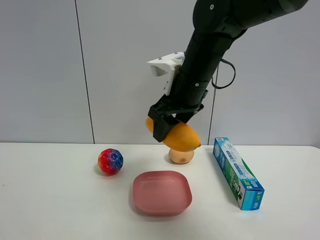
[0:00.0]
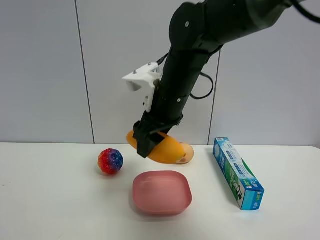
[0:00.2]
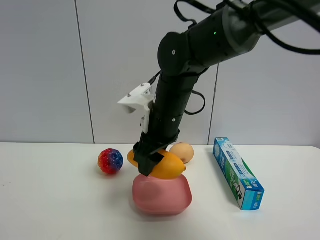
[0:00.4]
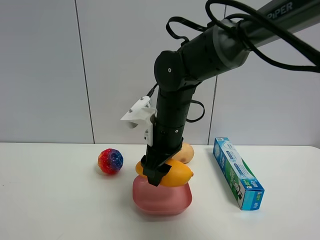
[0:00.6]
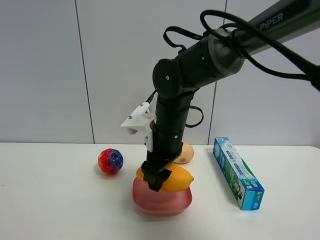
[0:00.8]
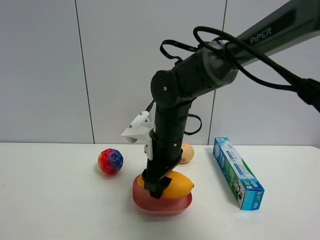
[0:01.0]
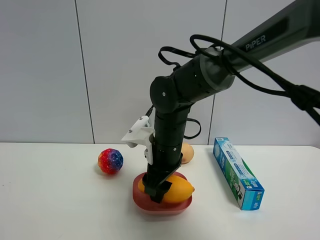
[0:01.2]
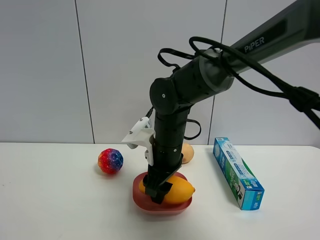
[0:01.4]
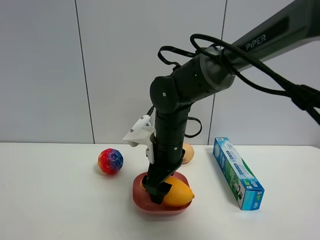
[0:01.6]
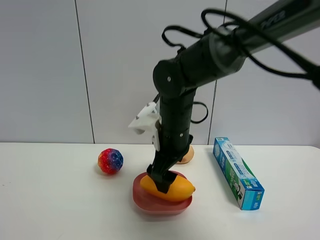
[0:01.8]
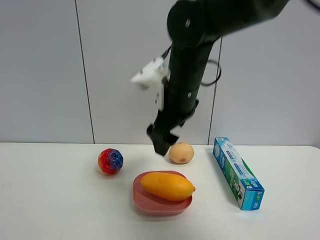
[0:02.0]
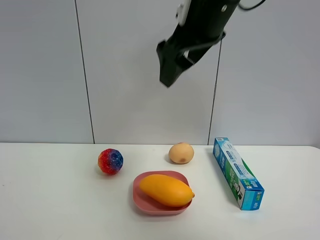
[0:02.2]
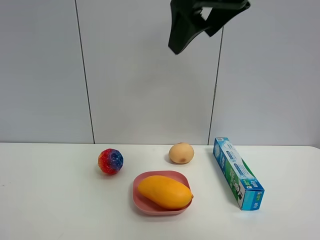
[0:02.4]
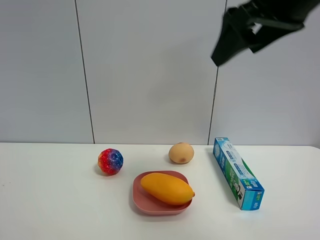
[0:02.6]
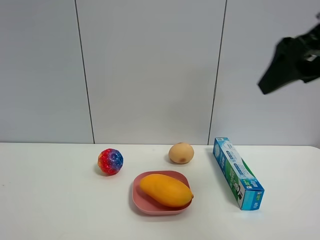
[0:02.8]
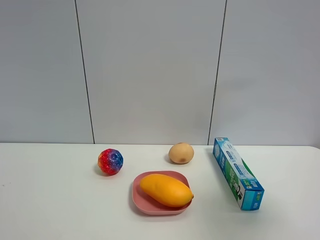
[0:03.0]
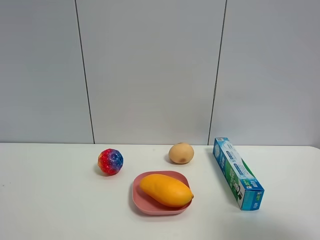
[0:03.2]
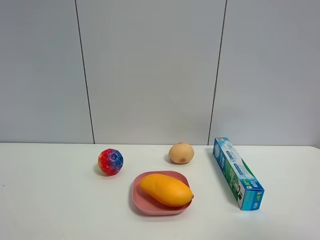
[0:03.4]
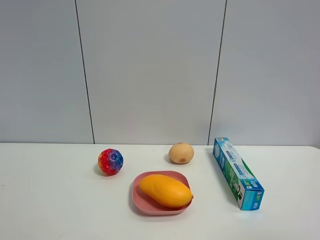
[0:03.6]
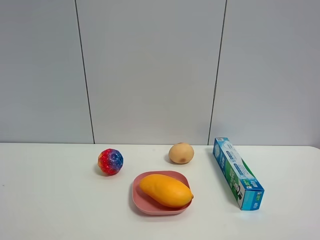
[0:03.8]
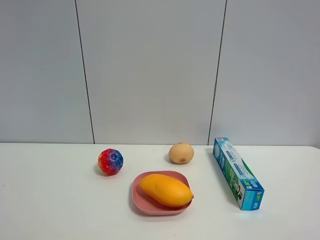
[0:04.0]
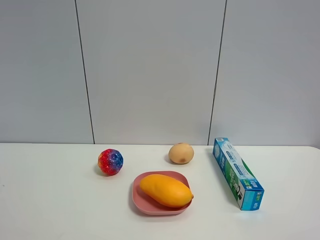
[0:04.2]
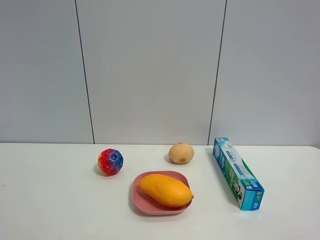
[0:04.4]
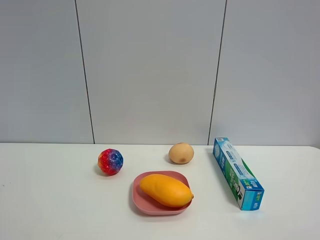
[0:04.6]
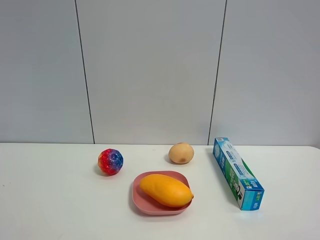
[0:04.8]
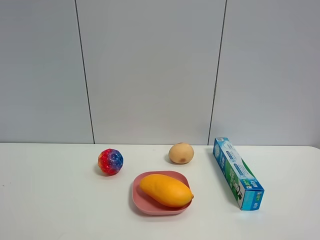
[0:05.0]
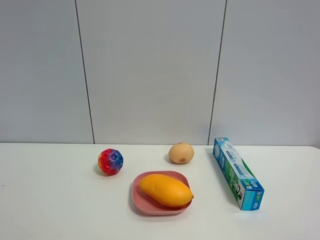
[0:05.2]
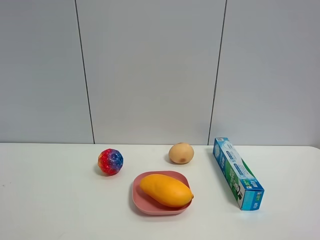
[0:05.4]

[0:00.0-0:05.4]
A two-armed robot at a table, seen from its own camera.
Task of the whole recording: the gripper move the object.
Step, 0.0 to 1.8 s: Place the mango into the pink plate with the right gripper.
0.0 to 1.4 s: The right gripper heads downward and to the left, covering some 15 cm.
1.4 to 2.8 s: The right gripper shifts approximately 30 cm upward, to the right and backward, and opens.
2.8 to 4.0 s: The right gripper heads backward and to the right, covering approximately 25 cm.

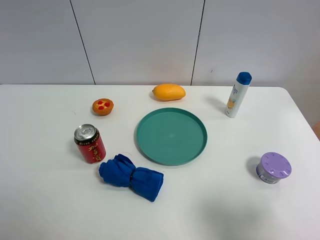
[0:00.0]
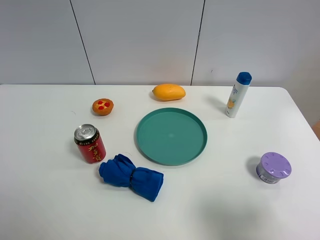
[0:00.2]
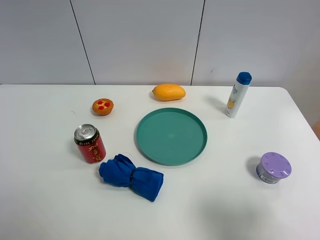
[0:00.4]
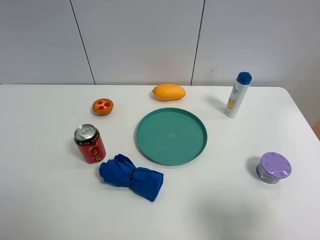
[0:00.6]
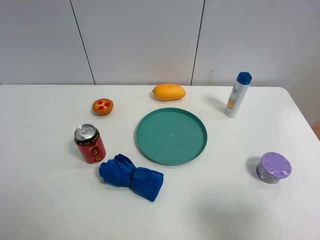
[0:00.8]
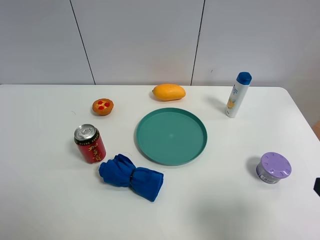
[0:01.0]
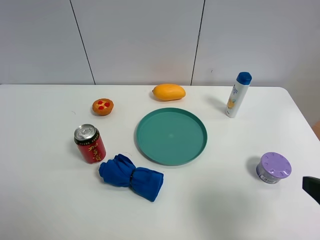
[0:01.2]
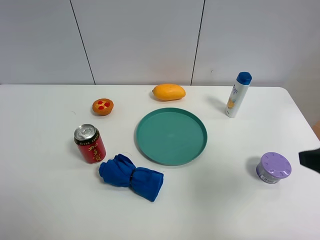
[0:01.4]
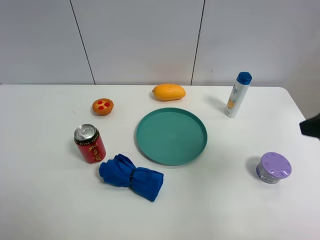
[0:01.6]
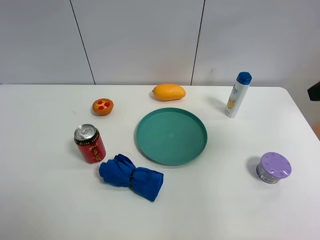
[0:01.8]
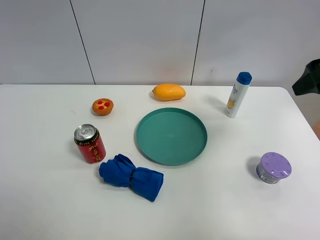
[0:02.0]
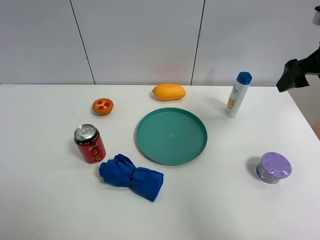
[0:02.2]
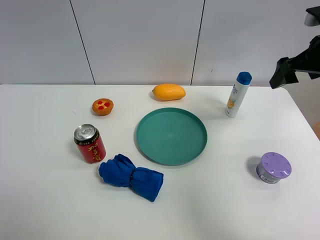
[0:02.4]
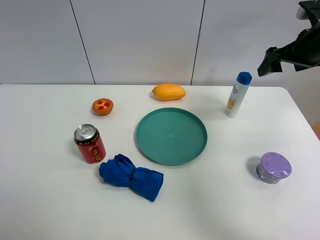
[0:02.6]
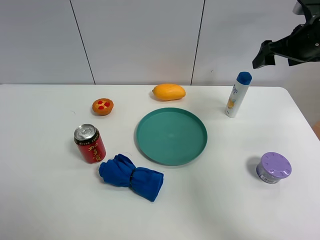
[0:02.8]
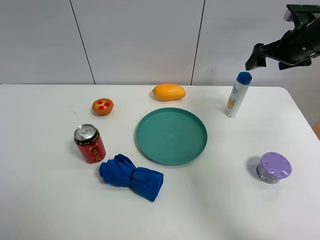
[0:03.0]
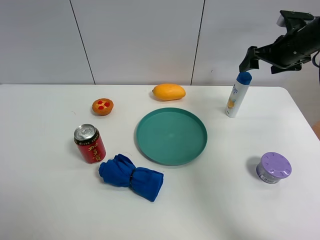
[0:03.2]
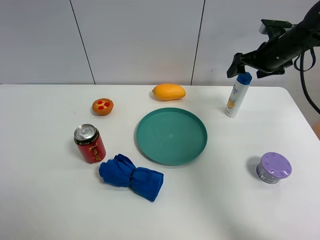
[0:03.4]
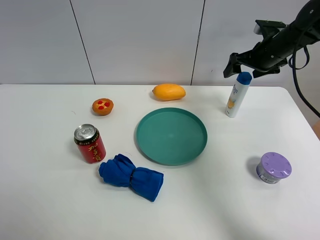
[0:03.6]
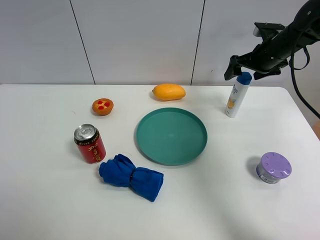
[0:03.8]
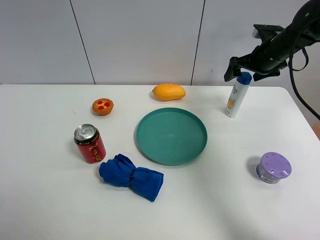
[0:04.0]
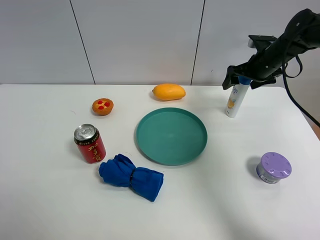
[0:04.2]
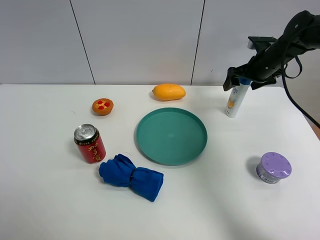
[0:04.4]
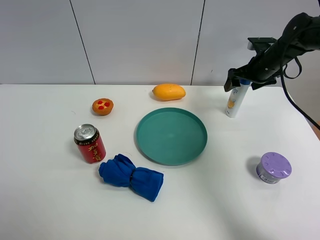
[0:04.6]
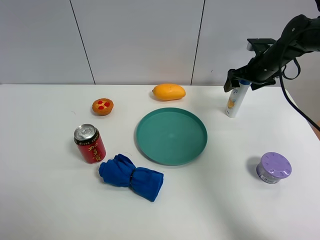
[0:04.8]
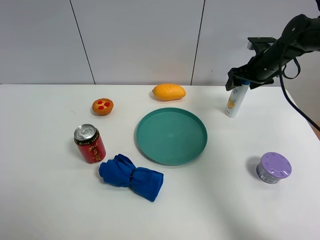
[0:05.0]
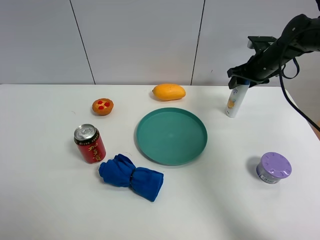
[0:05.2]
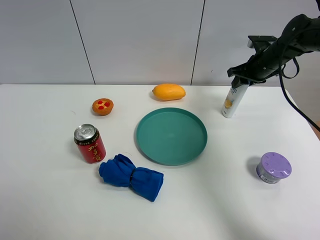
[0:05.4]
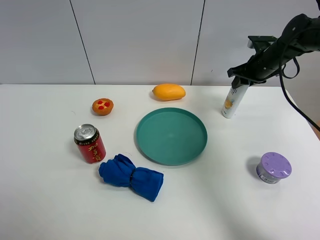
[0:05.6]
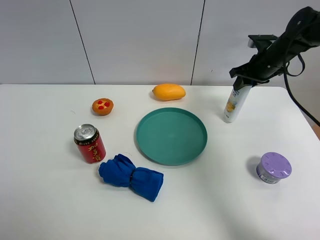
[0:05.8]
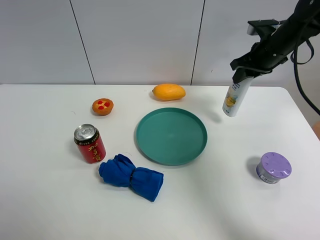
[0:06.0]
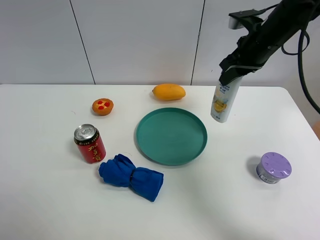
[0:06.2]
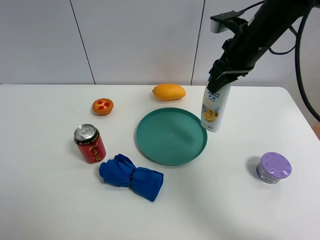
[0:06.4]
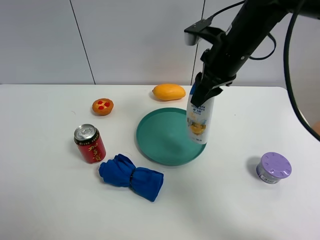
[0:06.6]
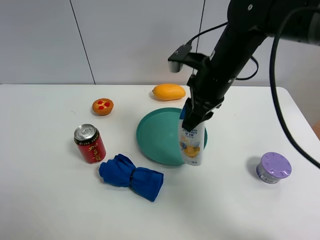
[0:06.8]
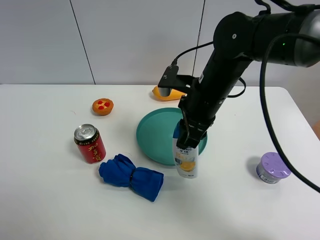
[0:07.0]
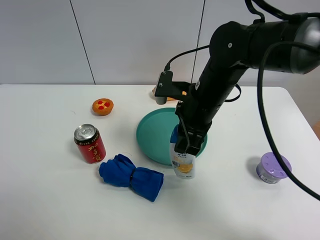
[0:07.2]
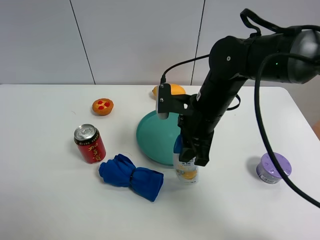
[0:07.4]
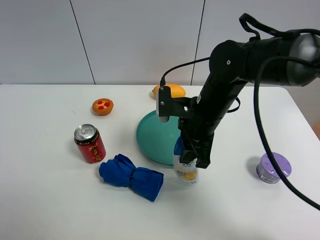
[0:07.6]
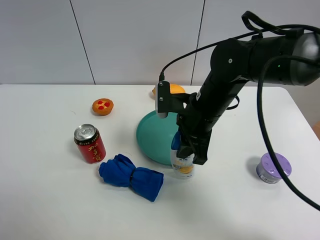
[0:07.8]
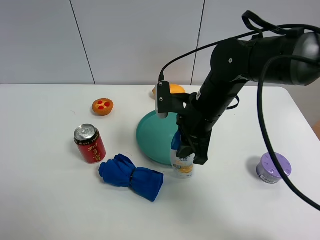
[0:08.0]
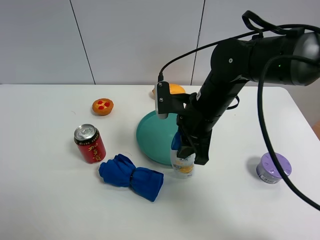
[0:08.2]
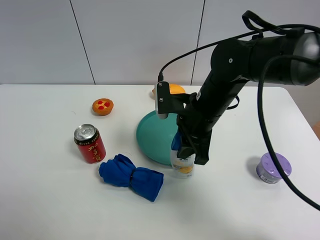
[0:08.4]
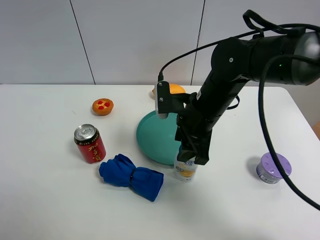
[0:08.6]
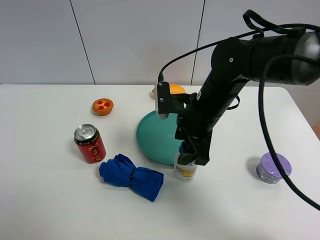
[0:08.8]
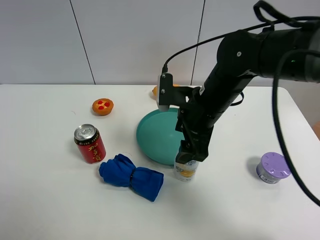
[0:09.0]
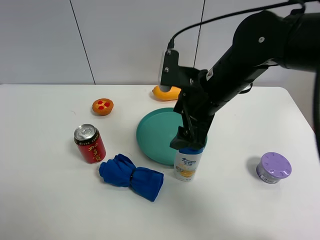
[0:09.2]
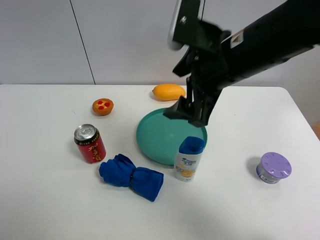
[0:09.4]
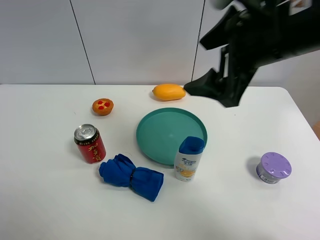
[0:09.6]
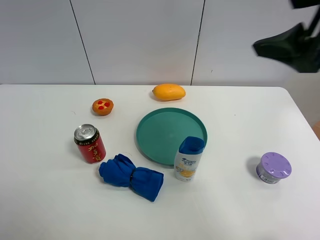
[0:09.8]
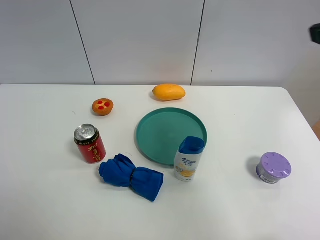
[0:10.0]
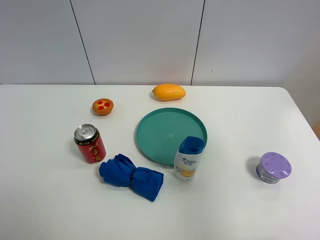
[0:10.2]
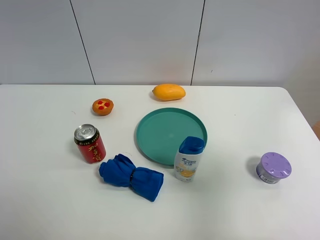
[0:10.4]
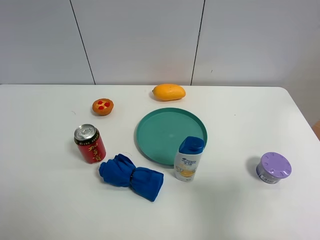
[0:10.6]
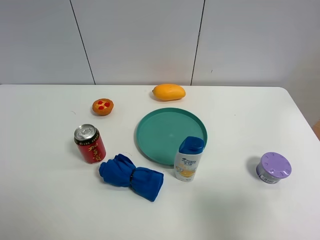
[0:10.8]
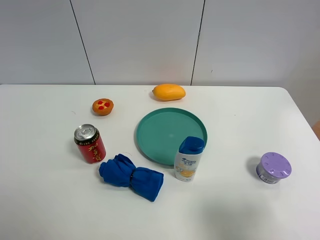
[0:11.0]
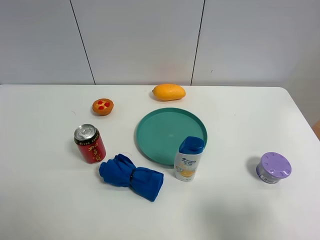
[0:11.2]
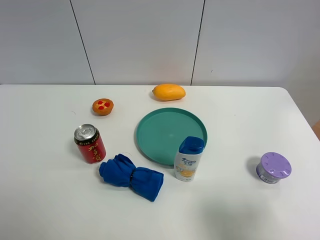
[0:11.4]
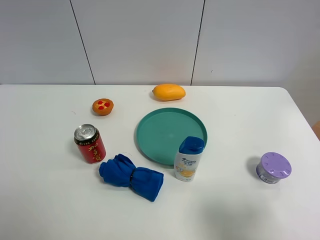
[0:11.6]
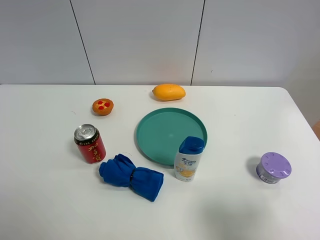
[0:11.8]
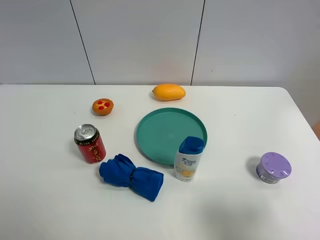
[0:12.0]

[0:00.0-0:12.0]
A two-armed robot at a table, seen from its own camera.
Task of the whole recording: the gripper move the object.
Step, 0.0 to 5.2 s: Grasp the shampoo with the right gripper.
Step, 5.4 to 8.6 s: Place the shampoo on the table with the right gripper.
0.0 to 1.6 s: The right gripper moves forward and upward, some 15 cm.
1.6 to 3.0 s: The right gripper heads forward, covering approximately 25 cm.
3.0 to 4.4 s: The right gripper heads downward, covering about 5 cm.
4.4 to 6.0 s: The right gripper shifts roughly 5 cm upward, and closes.
6.0 to 7.6 s: The right gripper travels to the left and backward by roughly 20 cm.
7.6 to 9.0 s: The right gripper opens its fingers.
9.0 to 10.4 s: The right gripper moves to the right, backward and upward, about 30 cm.
10.4 to 12.0 s: The right gripper is displaced downward and backward by some 10 cm.

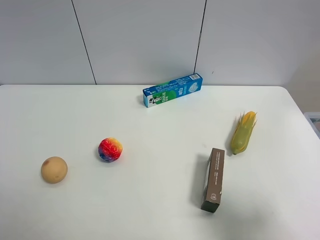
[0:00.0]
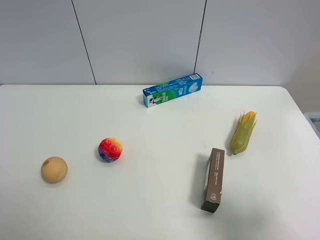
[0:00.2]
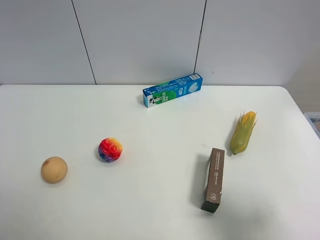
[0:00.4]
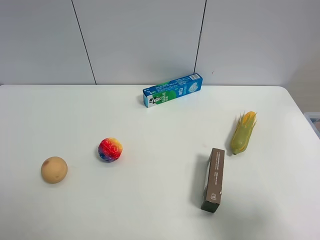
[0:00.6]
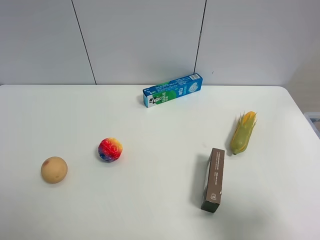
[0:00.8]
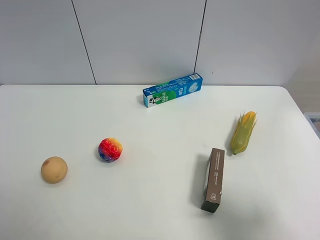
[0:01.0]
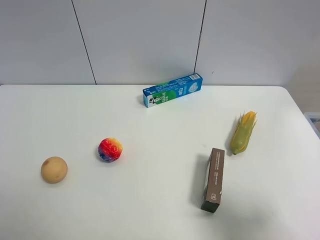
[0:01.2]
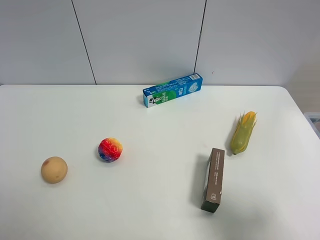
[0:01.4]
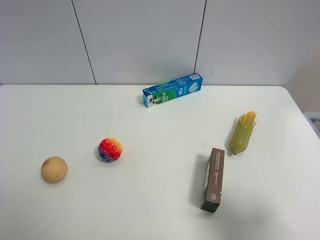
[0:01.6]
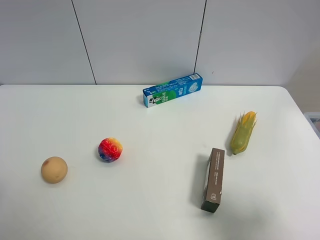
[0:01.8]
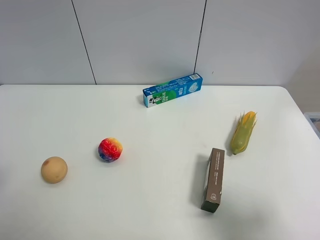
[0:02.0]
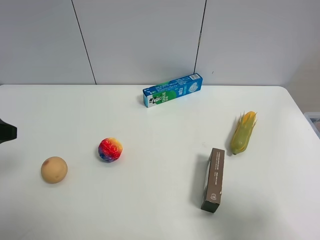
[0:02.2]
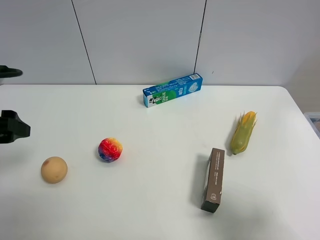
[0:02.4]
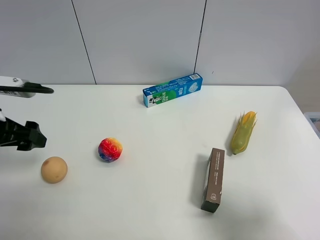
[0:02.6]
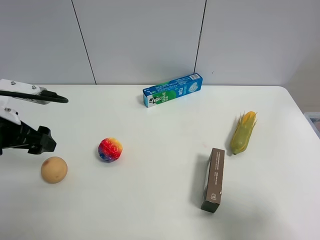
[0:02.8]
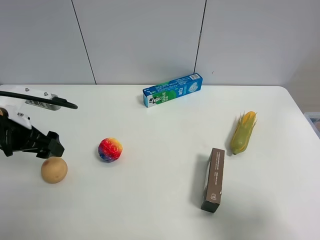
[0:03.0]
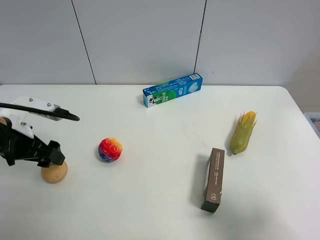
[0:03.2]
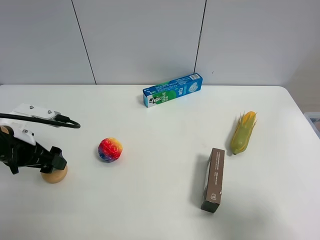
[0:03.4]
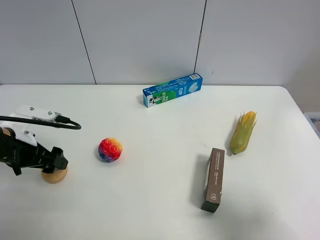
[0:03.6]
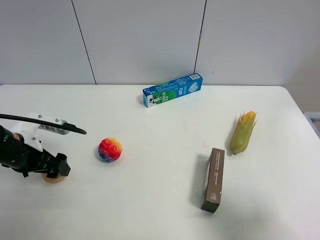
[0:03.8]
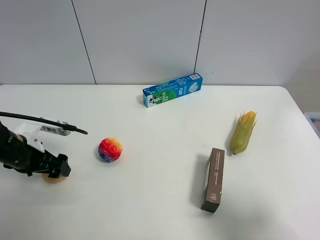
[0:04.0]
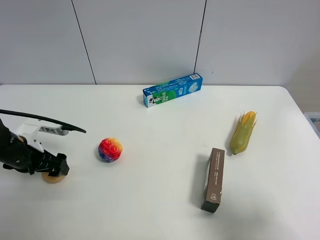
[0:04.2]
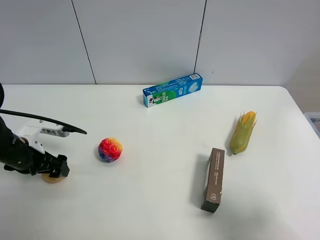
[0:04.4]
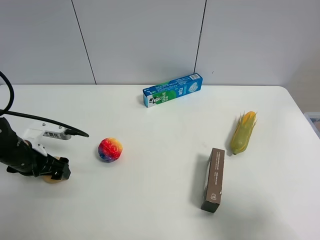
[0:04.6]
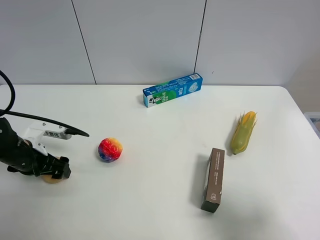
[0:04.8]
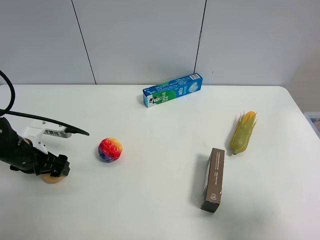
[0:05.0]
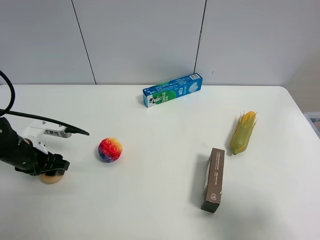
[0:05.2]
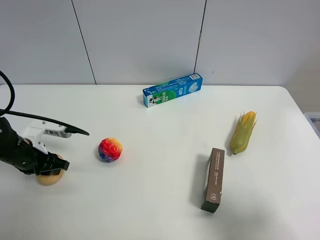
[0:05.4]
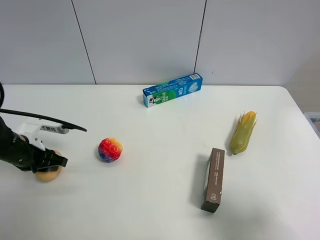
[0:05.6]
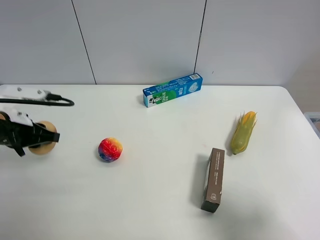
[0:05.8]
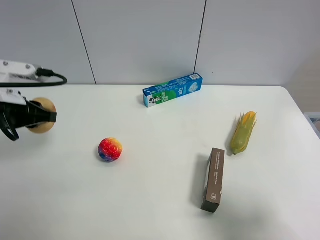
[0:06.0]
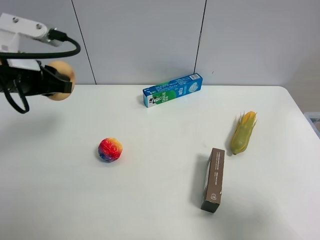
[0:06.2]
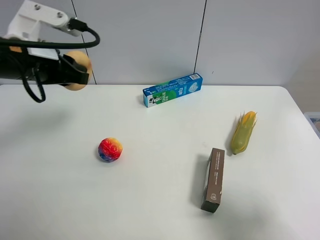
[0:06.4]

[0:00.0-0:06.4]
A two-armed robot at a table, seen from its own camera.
Task of the whole recording: the gripper move the object.
Step, 0.0 to 5.2 s: Grasp the egg yolk pastry with the left gripper.
0.0 to 1.6 s: Both grippers stay about where they are.
1.6 to 3.2 s: The left gripper heads forward and downward, covering about 25 cm.
3.2 to 4.8 s: The left gripper shifts approximately 10 cm downward.
4.8 to 6.4 s: The left gripper goes some 25 cm upward and to the right, and closes up.
